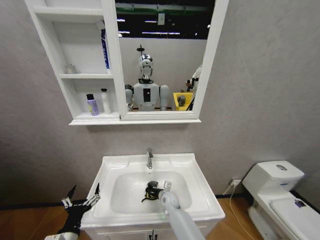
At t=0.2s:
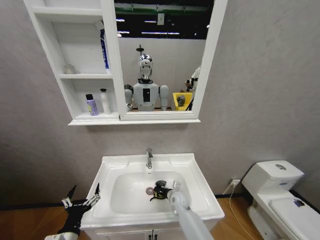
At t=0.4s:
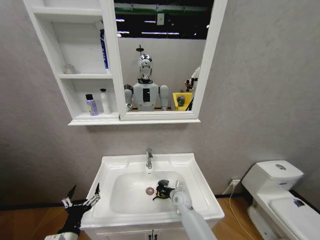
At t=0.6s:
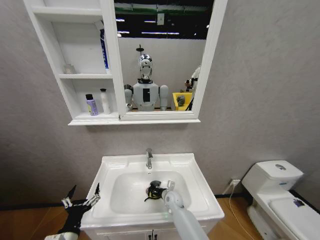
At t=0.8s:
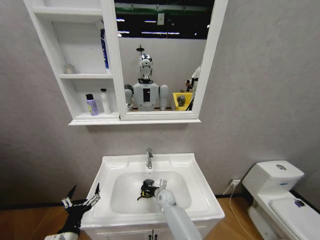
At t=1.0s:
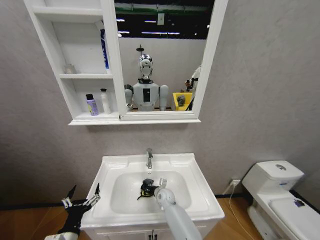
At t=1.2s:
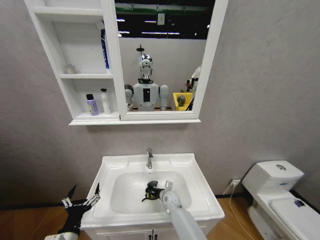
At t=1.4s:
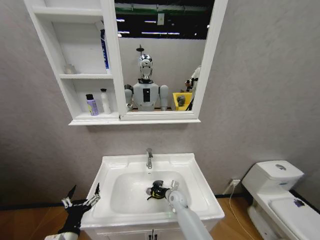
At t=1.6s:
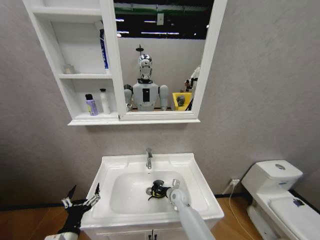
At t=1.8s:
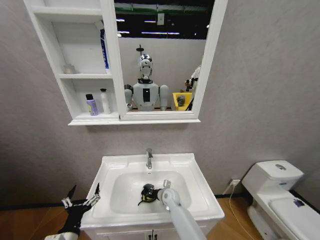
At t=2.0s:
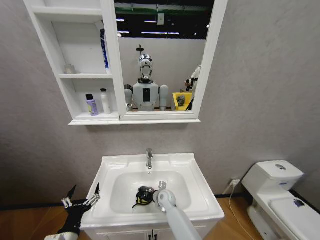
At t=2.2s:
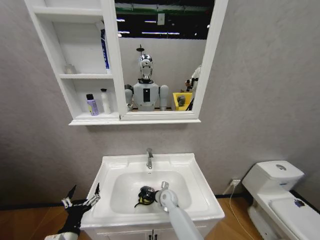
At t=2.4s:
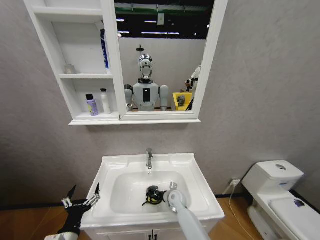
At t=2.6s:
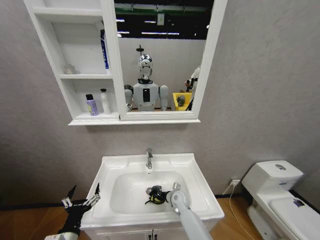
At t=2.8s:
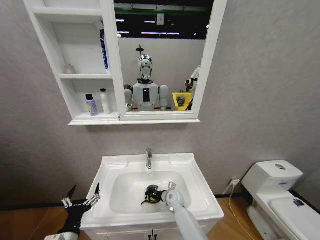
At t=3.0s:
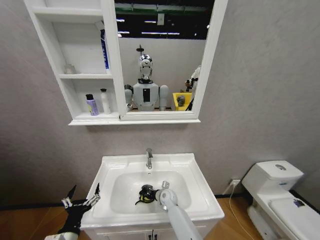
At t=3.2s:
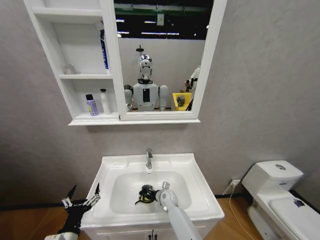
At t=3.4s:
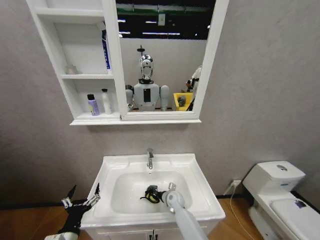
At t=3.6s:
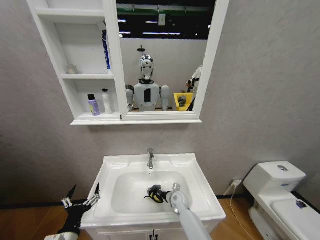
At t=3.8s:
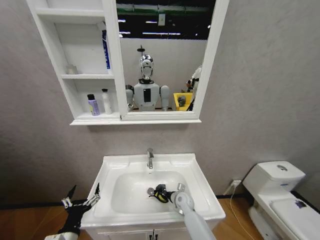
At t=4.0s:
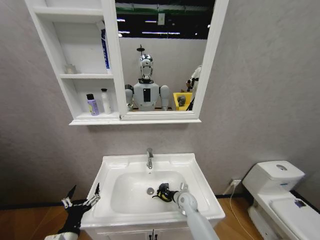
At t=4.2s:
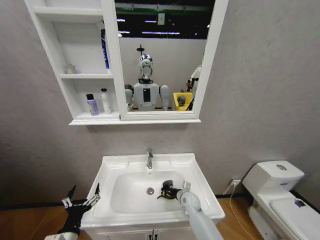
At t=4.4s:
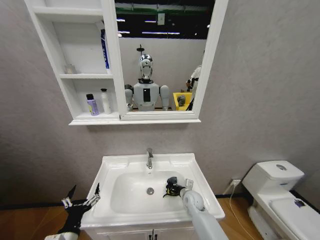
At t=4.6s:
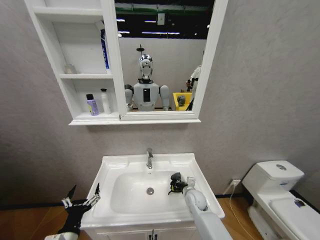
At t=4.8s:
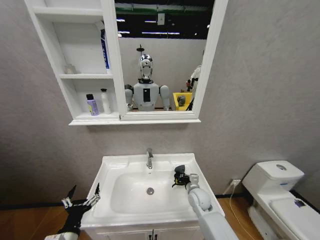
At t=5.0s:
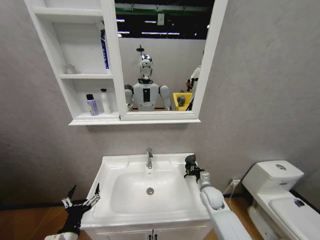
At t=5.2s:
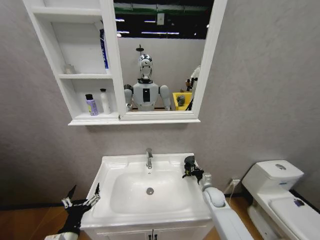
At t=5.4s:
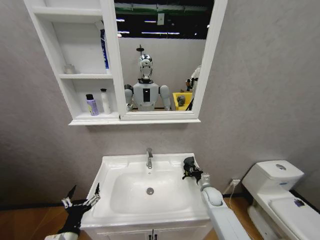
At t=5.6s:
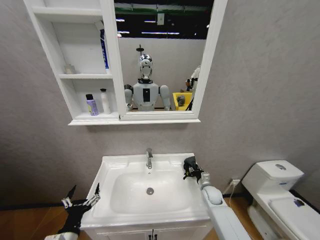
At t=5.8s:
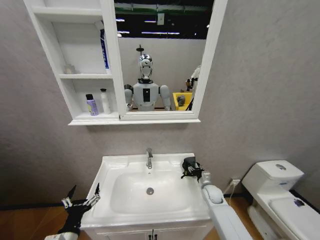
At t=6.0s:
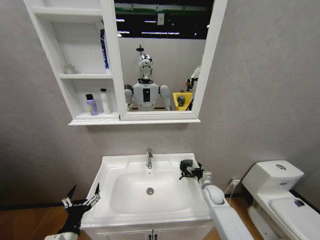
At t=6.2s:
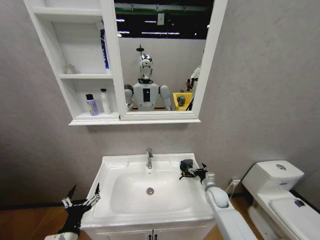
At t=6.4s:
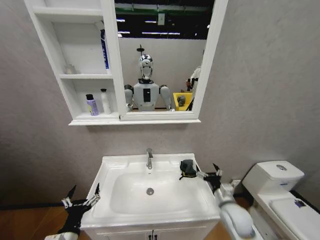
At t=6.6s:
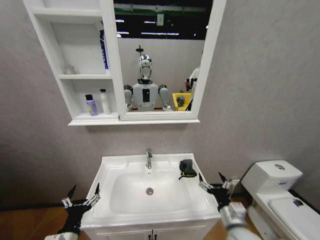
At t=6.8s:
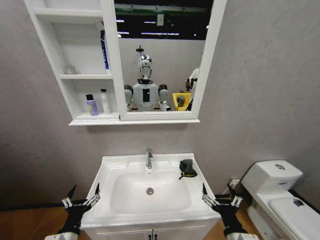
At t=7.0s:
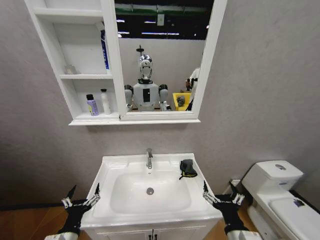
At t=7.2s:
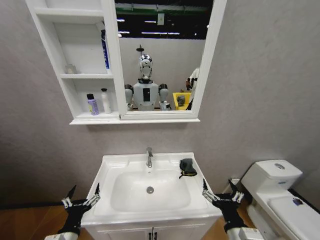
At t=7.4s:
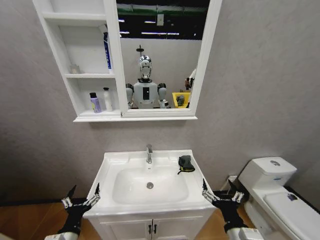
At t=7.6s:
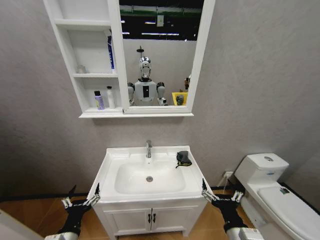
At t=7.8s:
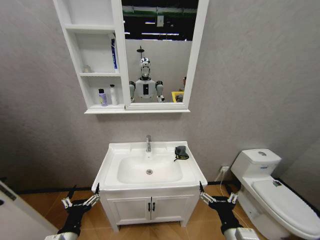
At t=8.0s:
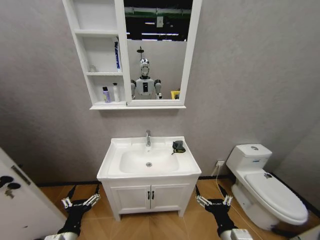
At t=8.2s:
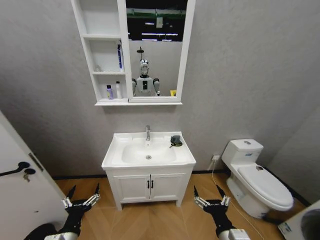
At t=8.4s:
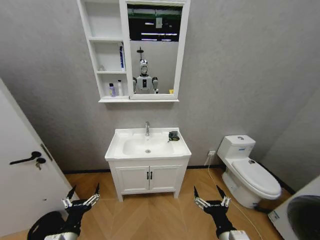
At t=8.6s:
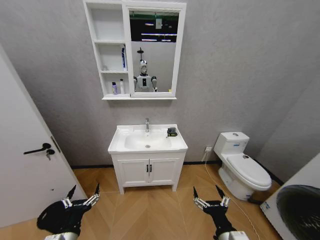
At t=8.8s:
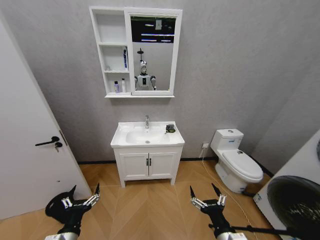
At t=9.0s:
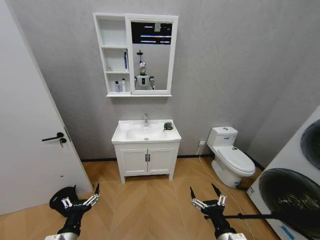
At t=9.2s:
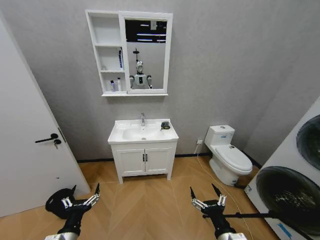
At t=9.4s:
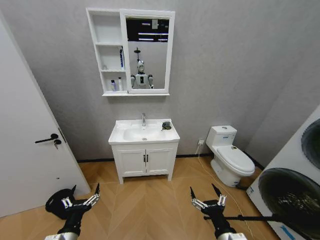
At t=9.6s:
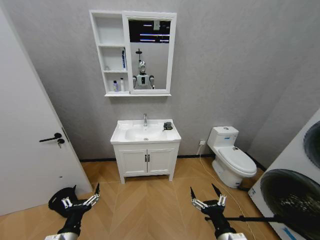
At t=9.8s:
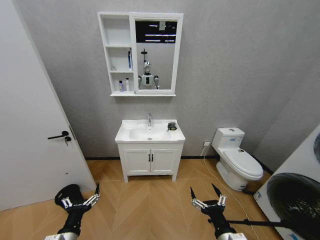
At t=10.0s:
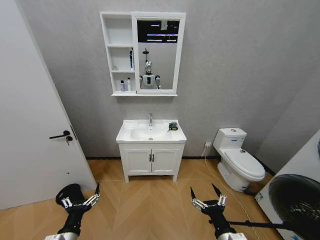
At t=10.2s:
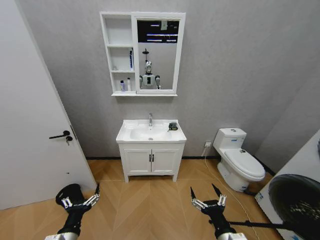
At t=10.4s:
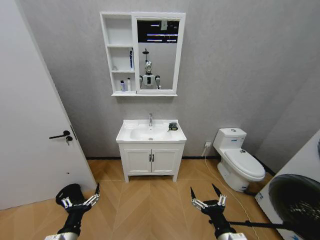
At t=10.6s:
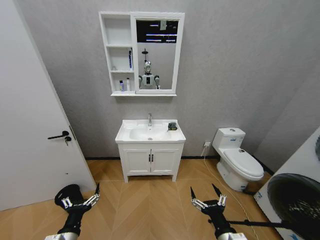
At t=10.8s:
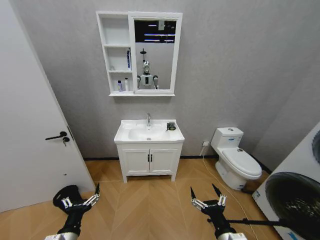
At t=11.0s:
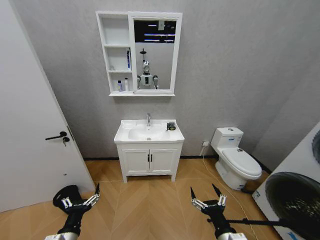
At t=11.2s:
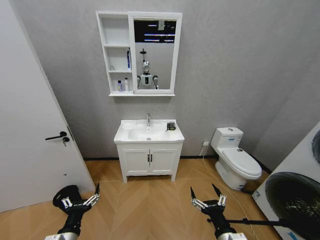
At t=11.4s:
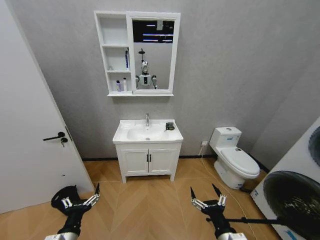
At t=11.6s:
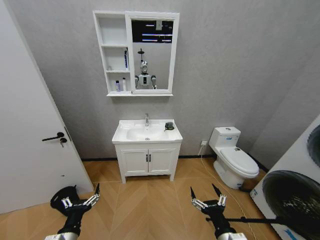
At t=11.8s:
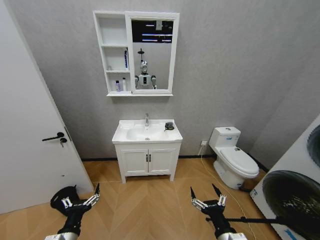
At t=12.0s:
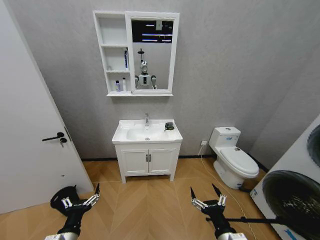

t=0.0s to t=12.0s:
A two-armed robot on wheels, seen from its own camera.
Task of the whole recording: Move facial cleanser and shampoo from washbasin to cabinet, then wipe washbasin with towel.
t=0.0s to t=1.6s: The right gripper moves left and right over roughly 10 cm, changing direction 2 times.
t=1.6s to t=3.0s: The right gripper goes left and right, about 10 cm each way, reversing 2 times.
t=3.0s to t=4.4s: The right gripper travels to the right by about 10 cm.
t=4.4s to t=6.0s: The right gripper travels to the right by some 10 cm, and opens.
t=6.0s to t=7.6s: The right gripper shifts some 35 cm backward and upward.
t=9.0s to t=12.0s: The two grippers keep their place.

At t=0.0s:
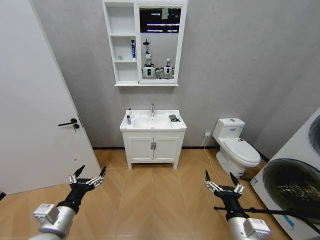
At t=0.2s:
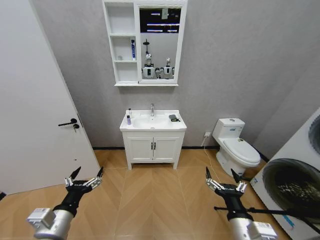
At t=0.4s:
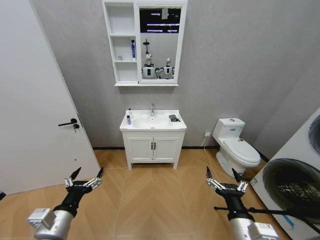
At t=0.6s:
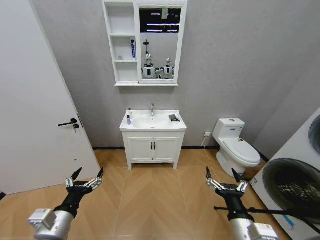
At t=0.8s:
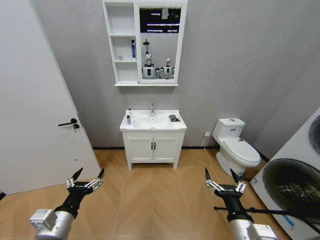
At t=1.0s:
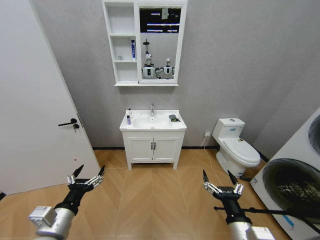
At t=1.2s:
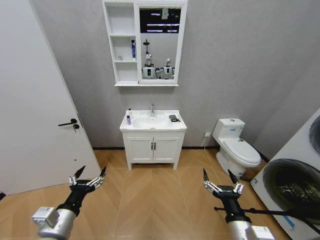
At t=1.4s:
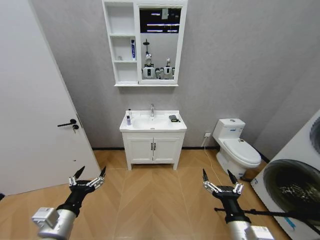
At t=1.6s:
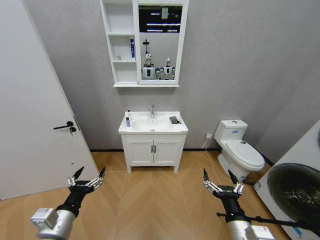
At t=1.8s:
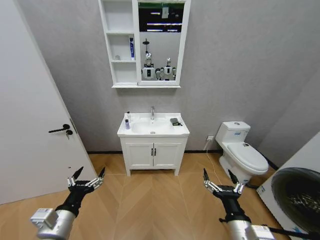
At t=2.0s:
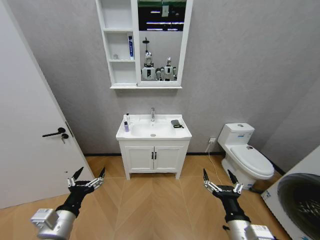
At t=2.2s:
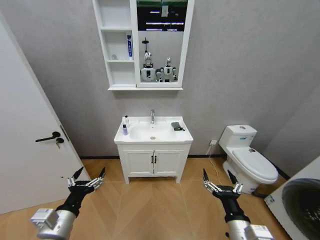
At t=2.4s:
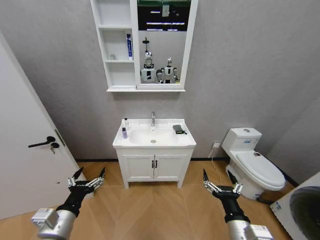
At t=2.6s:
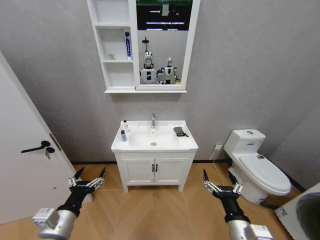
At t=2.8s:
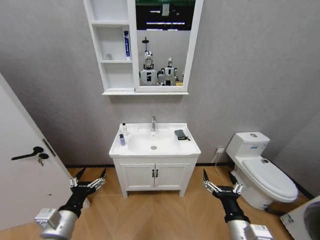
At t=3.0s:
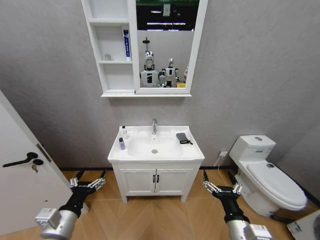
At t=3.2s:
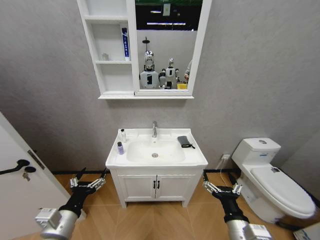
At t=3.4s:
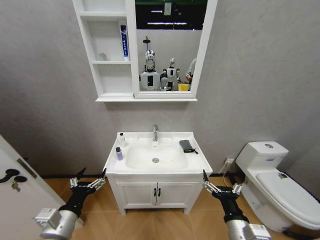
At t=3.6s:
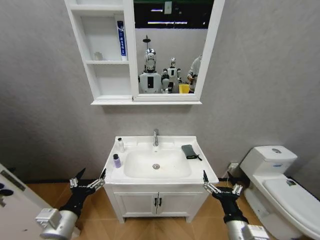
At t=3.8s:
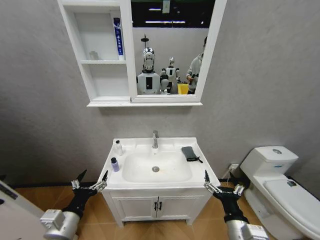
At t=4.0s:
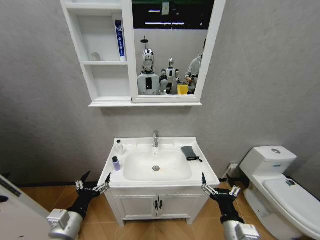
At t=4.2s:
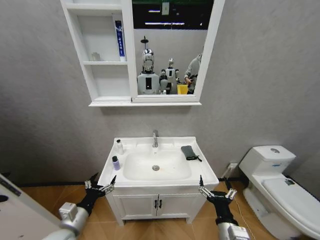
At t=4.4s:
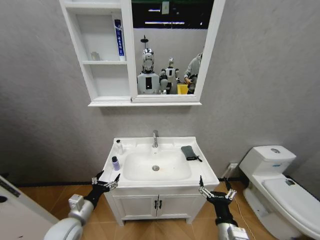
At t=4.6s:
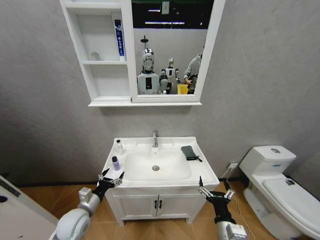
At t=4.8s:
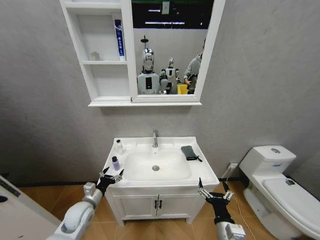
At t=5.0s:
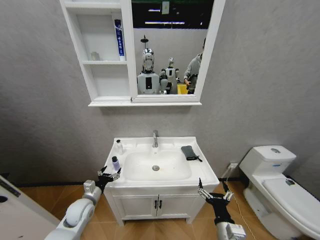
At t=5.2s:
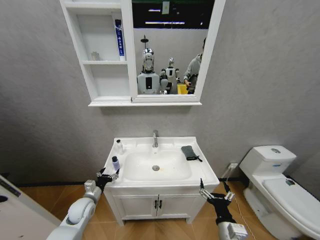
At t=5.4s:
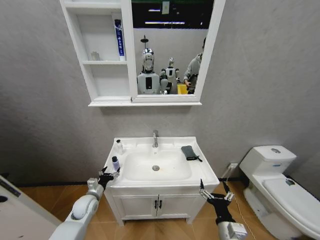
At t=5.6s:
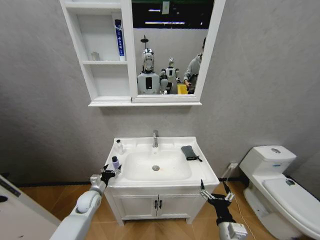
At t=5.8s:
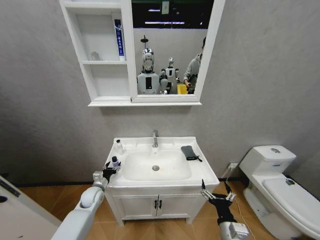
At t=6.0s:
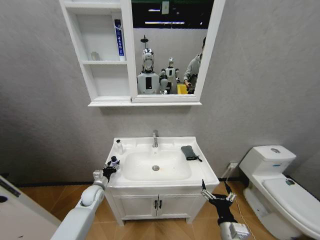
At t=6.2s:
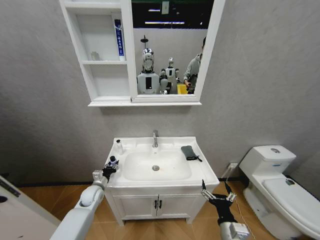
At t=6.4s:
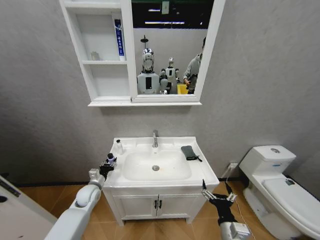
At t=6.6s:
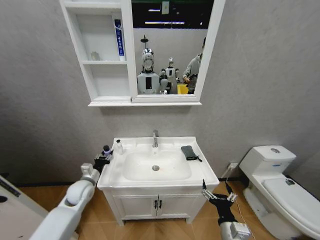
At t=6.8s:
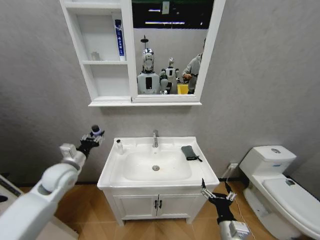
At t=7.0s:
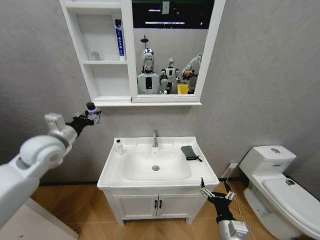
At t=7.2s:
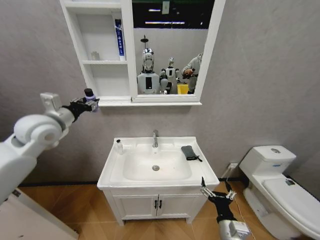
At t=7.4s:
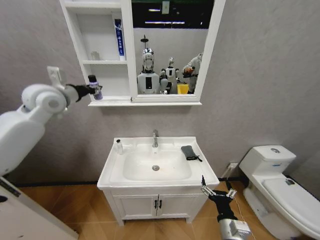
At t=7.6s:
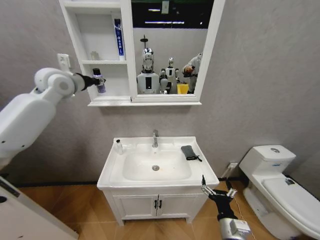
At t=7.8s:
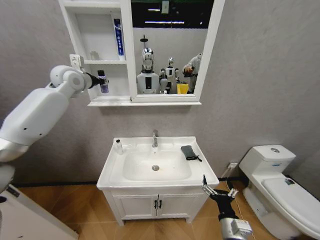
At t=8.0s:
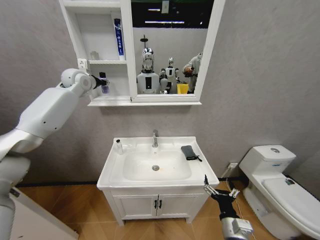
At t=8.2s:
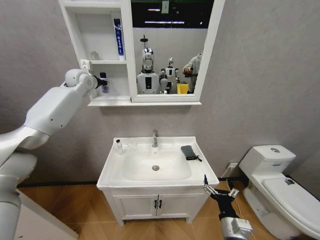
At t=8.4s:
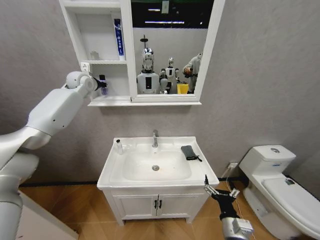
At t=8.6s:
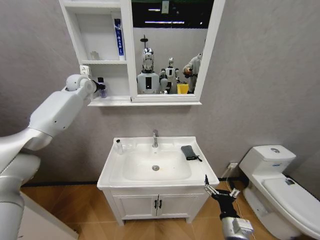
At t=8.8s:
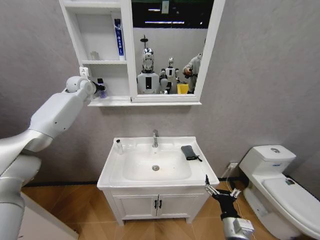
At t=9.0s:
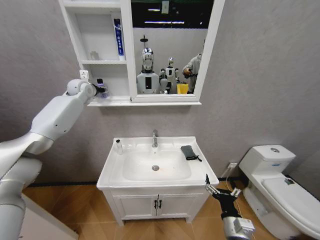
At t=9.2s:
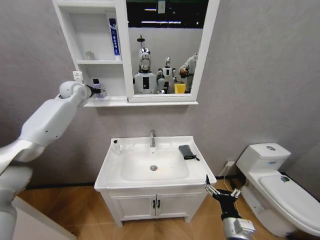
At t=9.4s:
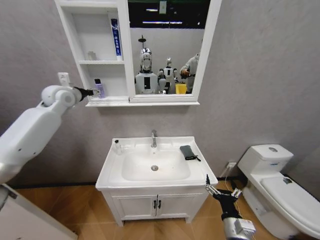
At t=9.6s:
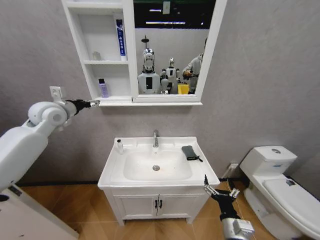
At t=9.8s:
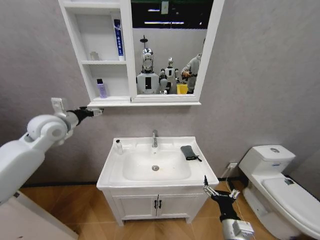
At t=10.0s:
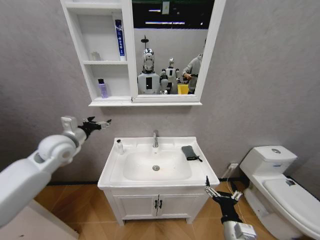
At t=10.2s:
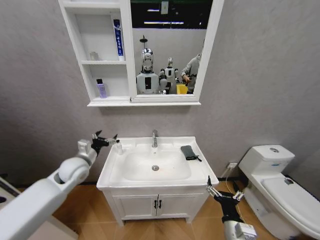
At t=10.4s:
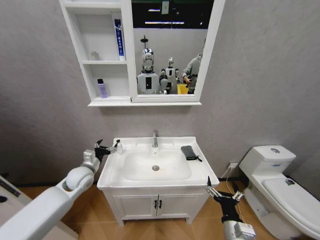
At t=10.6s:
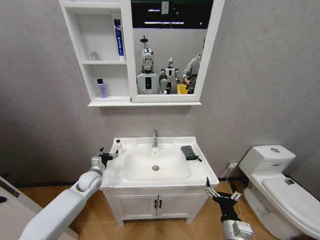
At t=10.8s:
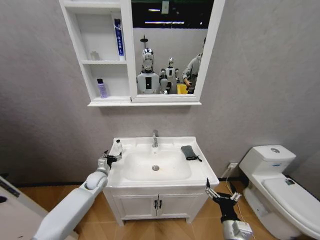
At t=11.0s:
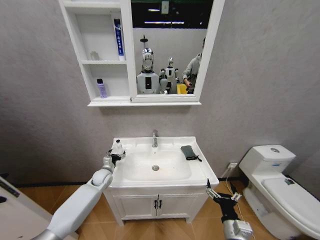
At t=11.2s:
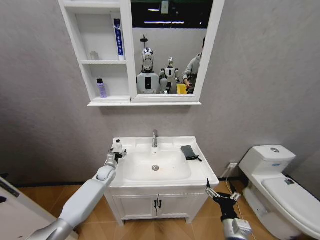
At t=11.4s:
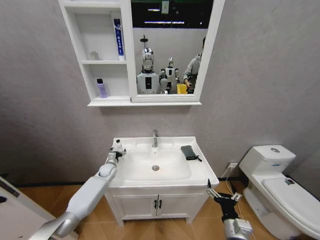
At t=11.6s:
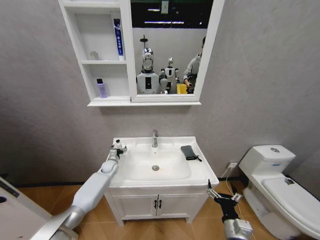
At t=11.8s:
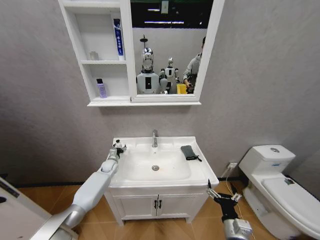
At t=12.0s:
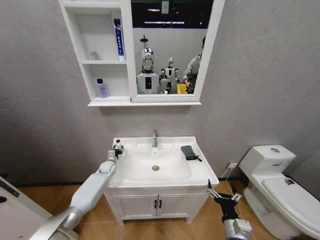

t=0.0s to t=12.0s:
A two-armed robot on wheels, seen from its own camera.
Task of the whole recording: Move facial cleanser and shampoo from washbasin to cabinet, then wipe washbasin with towel.
t=3.0s to t=4.4s: The left gripper travels downward and forward by roughly 10 cm, while the right gripper heads downward, covering about 5 cm.
t=4.4s to t=6.0s: The left gripper travels forward and downward by some 20 cm, and closes up.
t=6.0s to t=7.6s: The left gripper travels upward by some 50 cm, and closes its fingers.
t=7.6s to t=9.0s: The left gripper goes approximately 15 cm forward and downward, and opens.
t=9.0s to t=10.4s: The left gripper heads downward and backward, covering roughly 40 cm, and opens.
t=10.4s to t=12.0s: The left gripper goes about 20 cm downward and forward, and closes its fingers.
